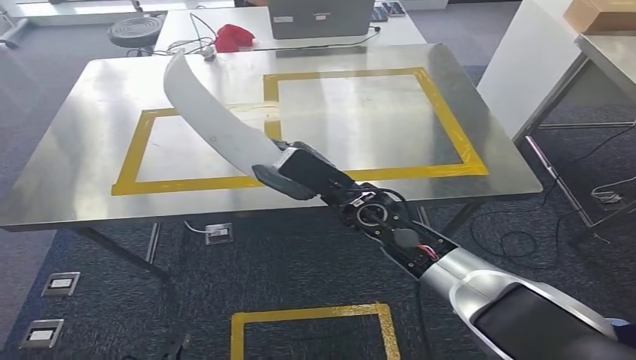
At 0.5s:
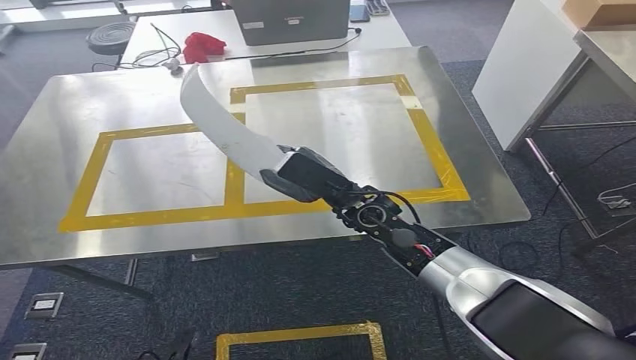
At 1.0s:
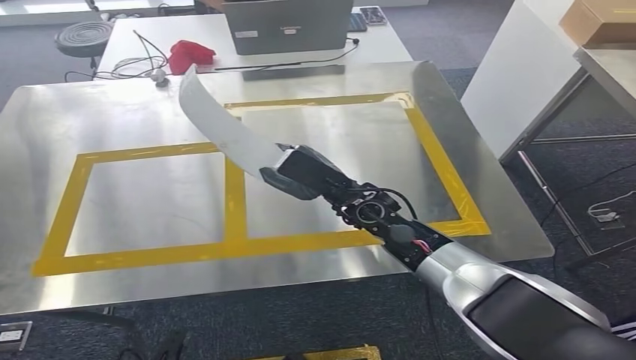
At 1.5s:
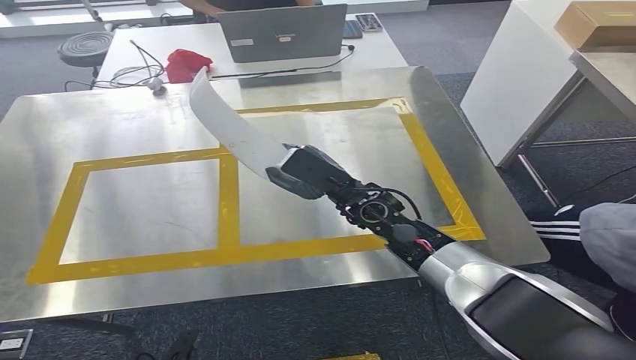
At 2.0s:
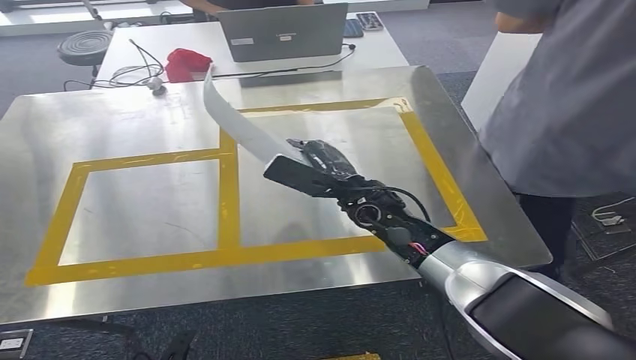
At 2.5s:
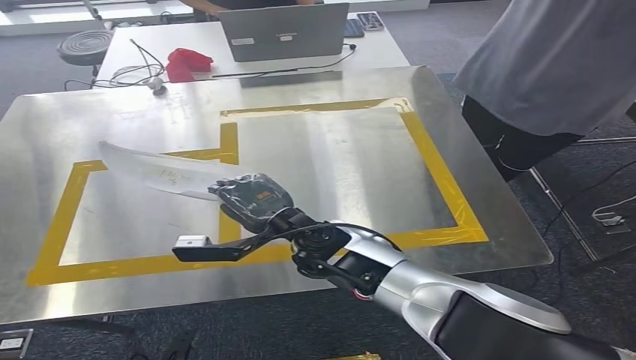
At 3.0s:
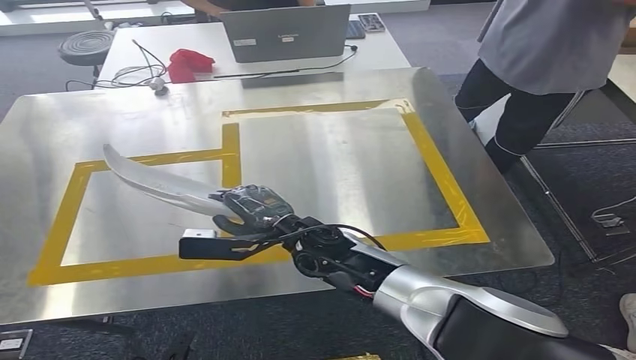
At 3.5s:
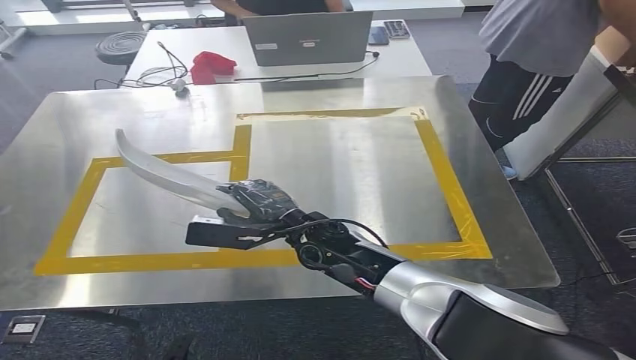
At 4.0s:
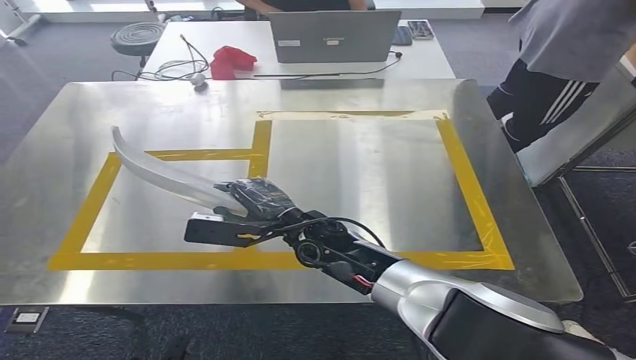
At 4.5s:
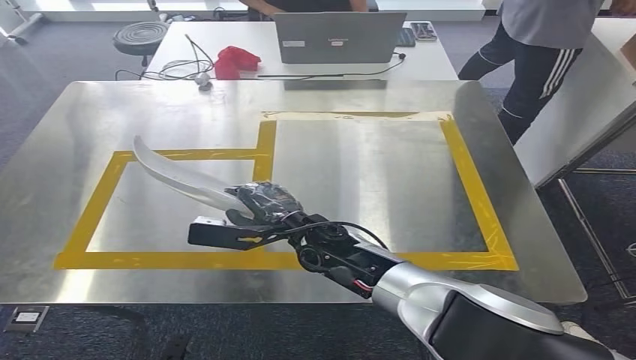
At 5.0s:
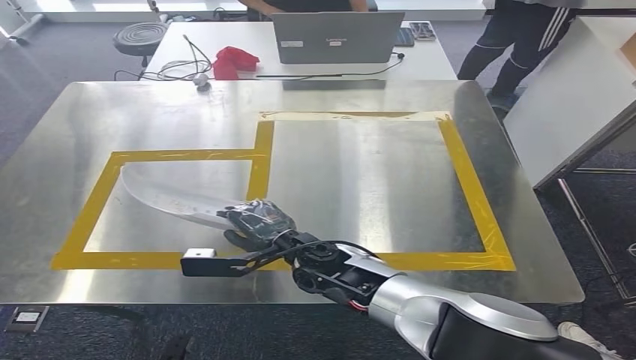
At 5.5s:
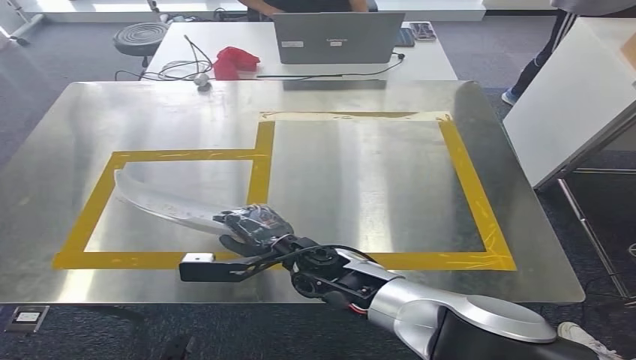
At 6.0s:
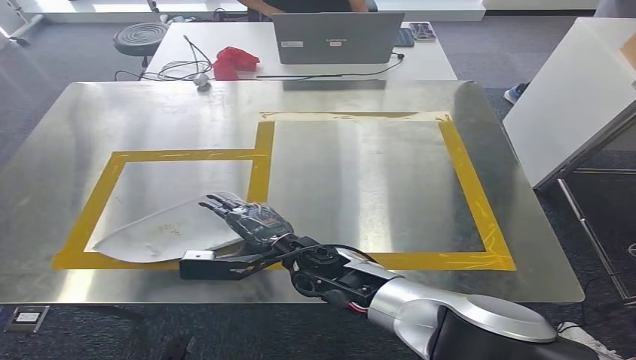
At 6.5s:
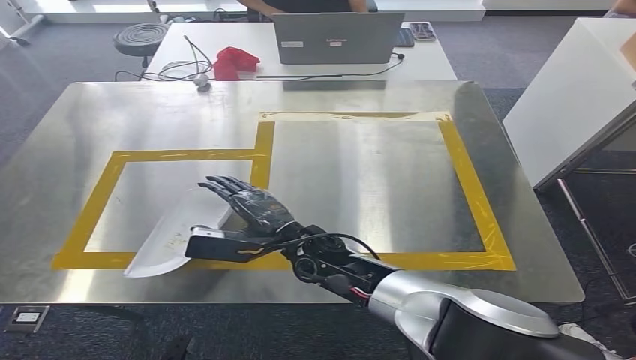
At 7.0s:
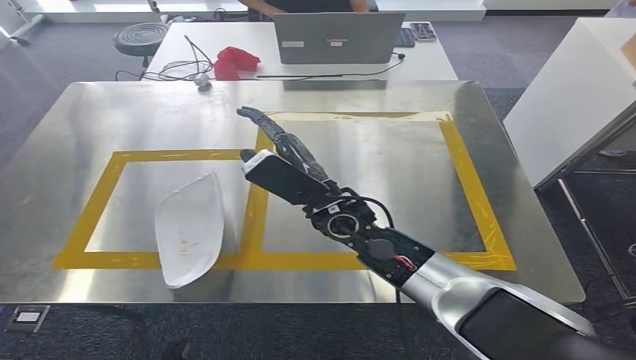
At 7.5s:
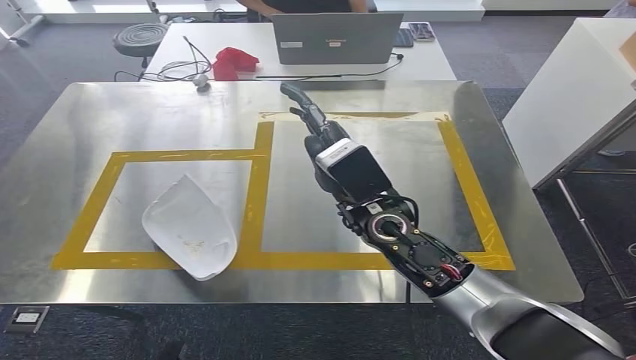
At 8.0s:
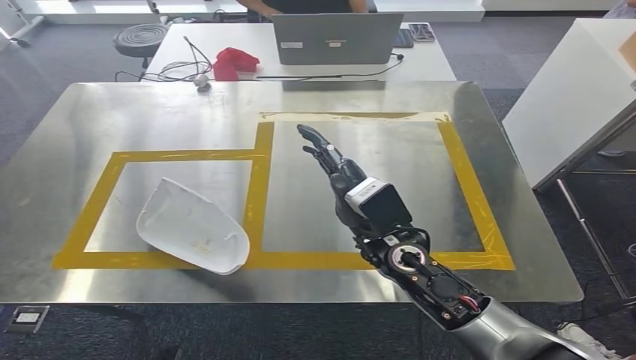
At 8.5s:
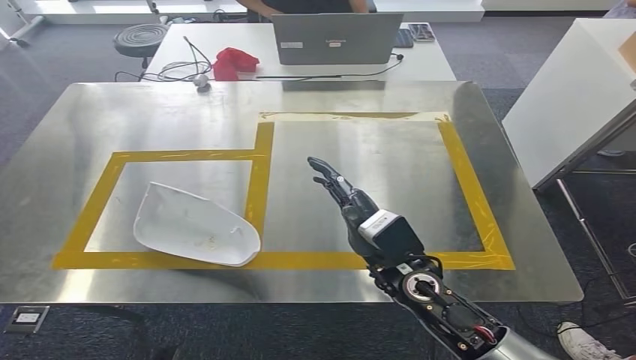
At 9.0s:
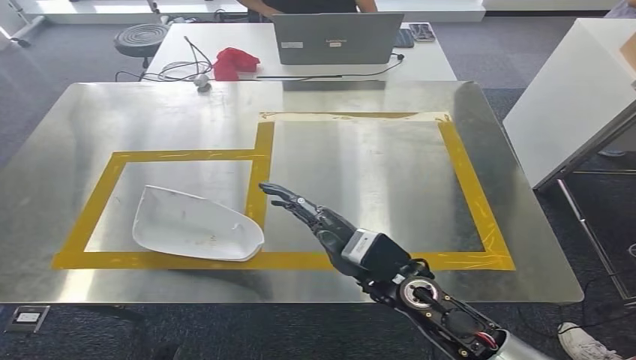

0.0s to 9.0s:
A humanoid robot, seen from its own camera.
Step, 0.0s to 6.5s: Insert the small component into the corresponding slot on the workbench.
7.0s to 9.0s: The right hand moves backward and to the right, some 10 cm.

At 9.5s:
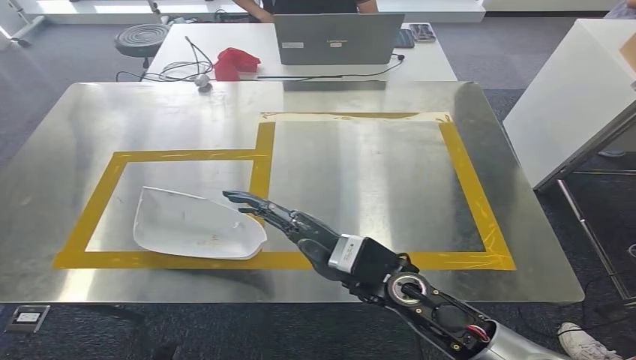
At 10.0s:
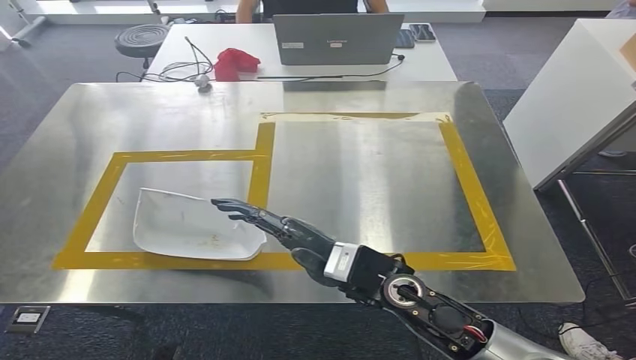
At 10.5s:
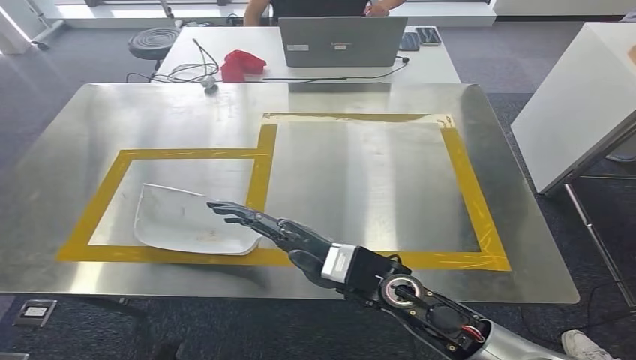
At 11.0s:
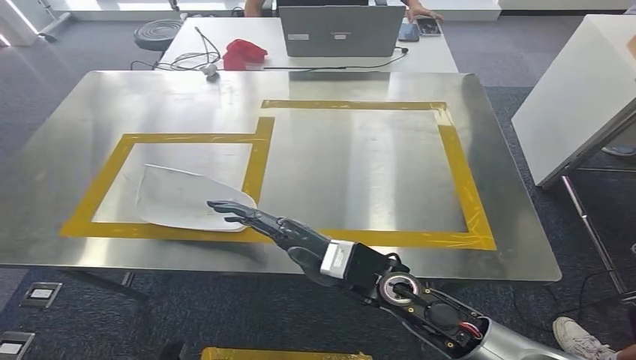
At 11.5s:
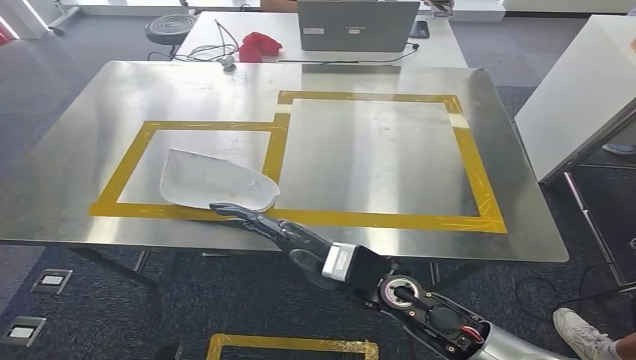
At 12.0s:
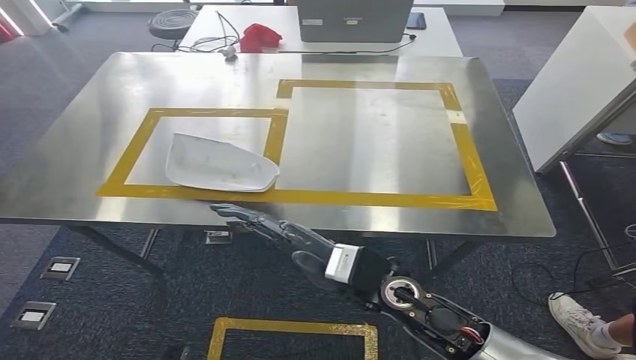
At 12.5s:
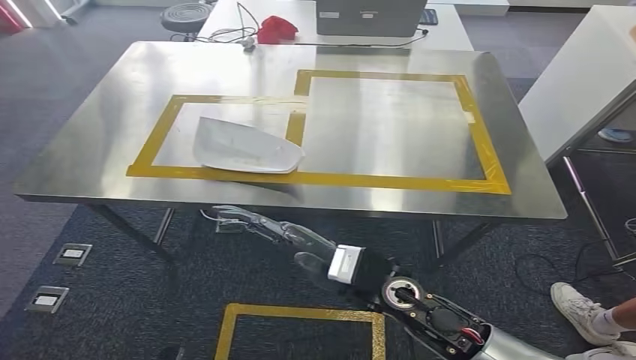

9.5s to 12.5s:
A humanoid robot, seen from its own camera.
Step, 9.5s to 12.0s: Return to the initial position at the workbench.
